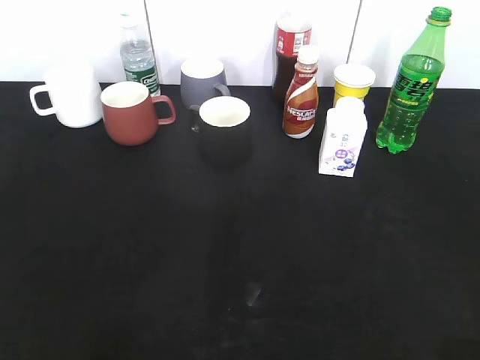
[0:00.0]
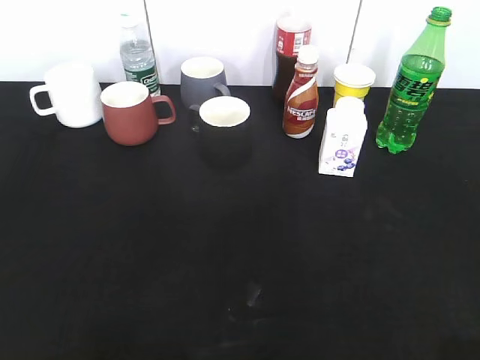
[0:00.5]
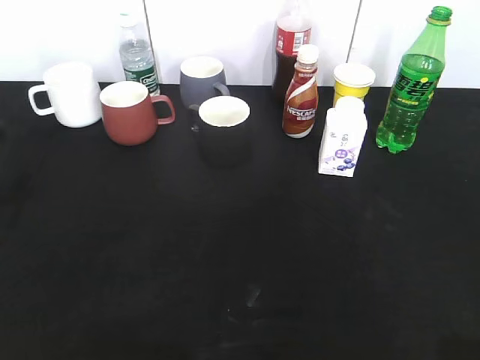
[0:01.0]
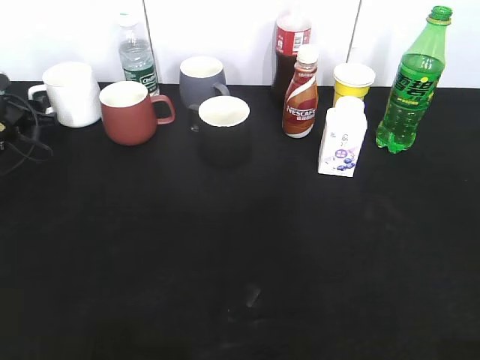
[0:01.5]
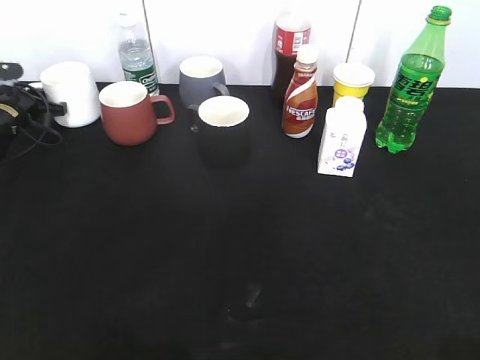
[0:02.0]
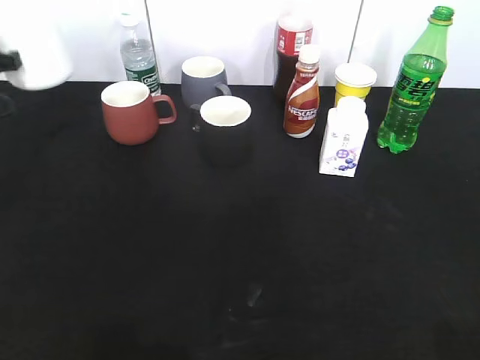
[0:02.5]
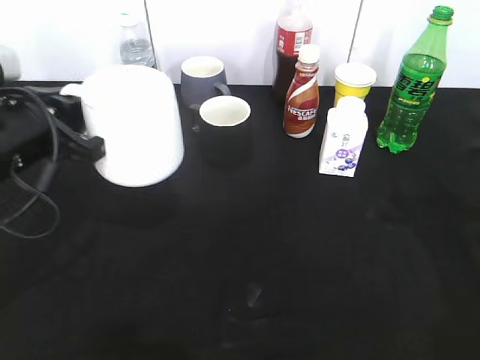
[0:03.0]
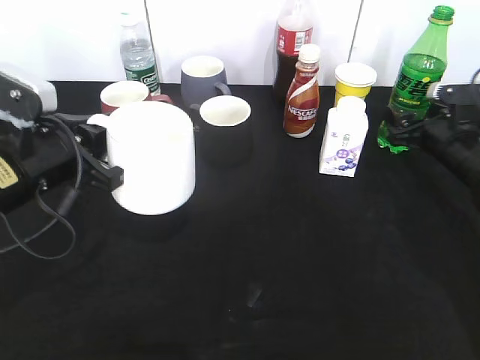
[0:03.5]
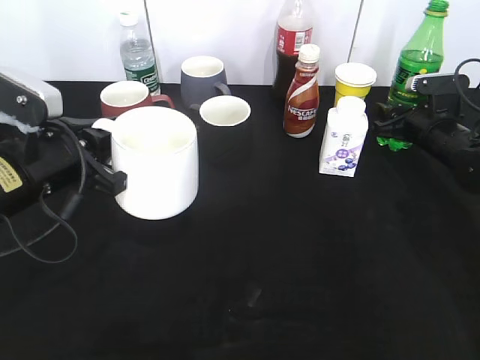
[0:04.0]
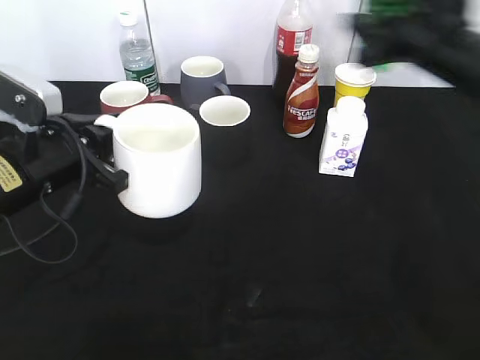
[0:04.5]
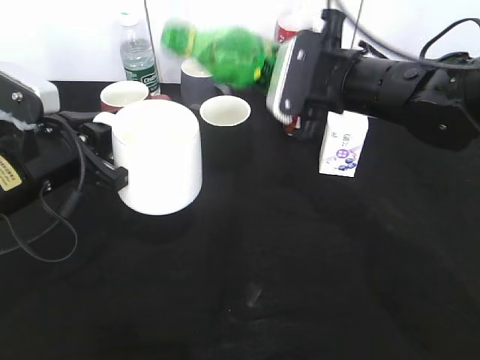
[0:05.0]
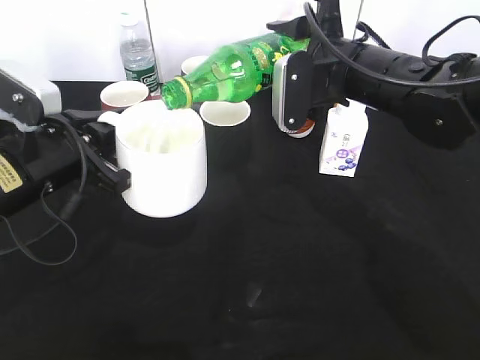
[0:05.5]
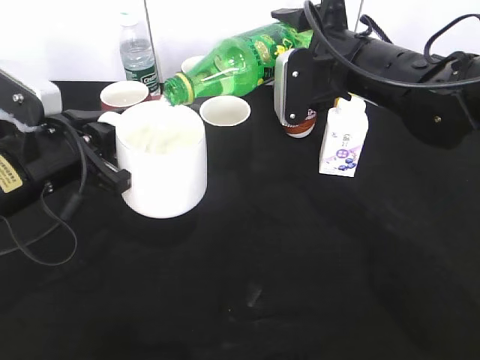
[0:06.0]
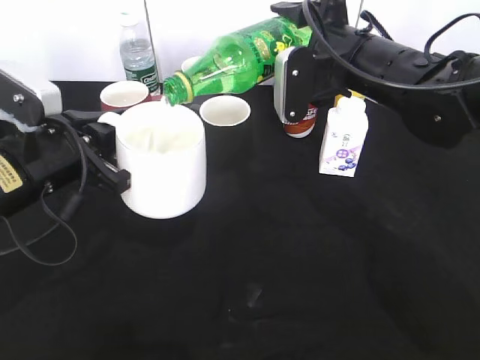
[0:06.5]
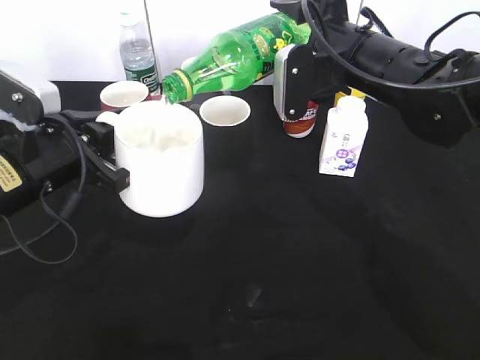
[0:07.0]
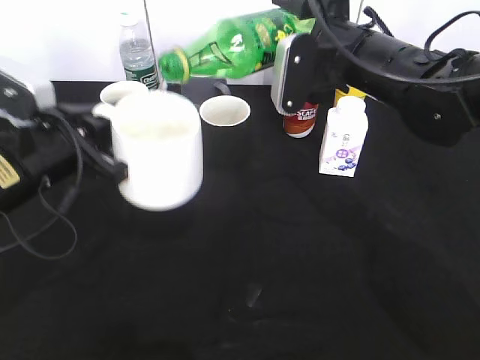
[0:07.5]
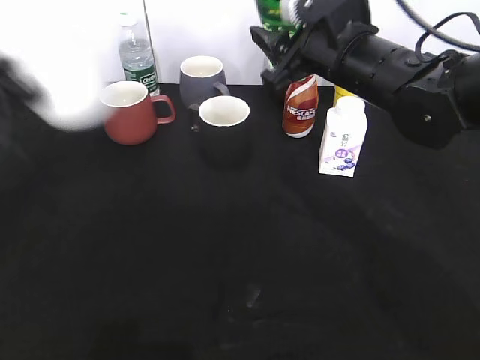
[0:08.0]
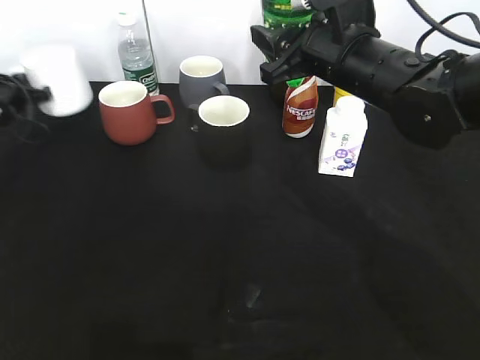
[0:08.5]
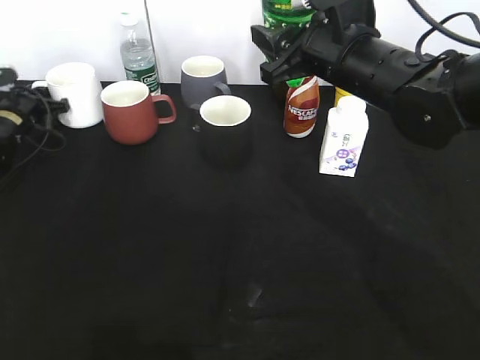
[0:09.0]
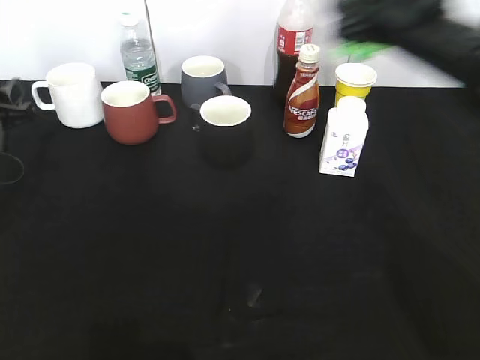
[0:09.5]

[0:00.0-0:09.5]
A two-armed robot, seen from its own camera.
Step, 0:02.0 to 0:03.5: Lift the white cup with left gripper.
Step, 0:04.5 to 0:07.5: Pour the sprite from bottle to cup with right gripper.
Step, 0:08.0 to 0:09.0: Place the white cup on the table with left gripper.
0:00.0 to 0:02.0: The left gripper heads forward and downward, covering about 60 cm, and closes its fingers.
0:02.0 to 0:04.0: The left gripper moves backward, to the right and upward, roughly 30 cm. The right gripper travels forward and downward by approximately 50 cm, and closes.
0:04.0 to 0:05.5: The right gripper goes roughly 25 cm to the left, upward and backward.
0:05.5 to 0:07.5: The grippers stay close to where they were, moving slightly.
0:07.5 to 0:09.5: The right gripper is displaced to the right by about 5 cm. The left gripper travels to the left and forward by roughly 15 cm, and opens.

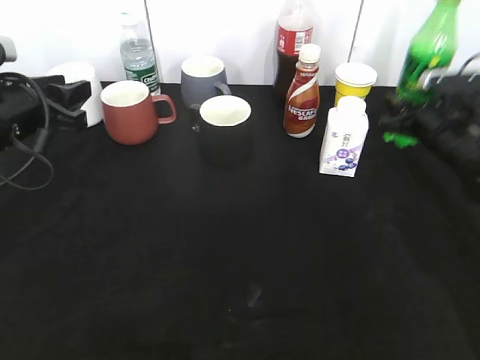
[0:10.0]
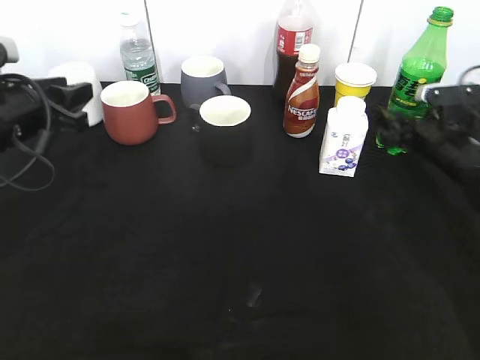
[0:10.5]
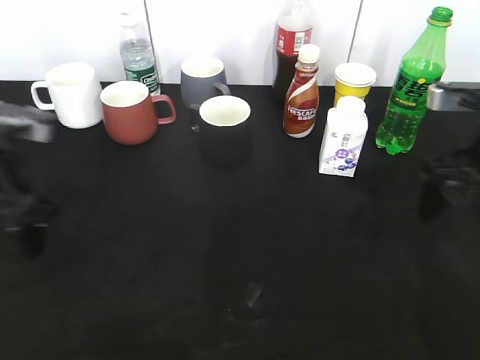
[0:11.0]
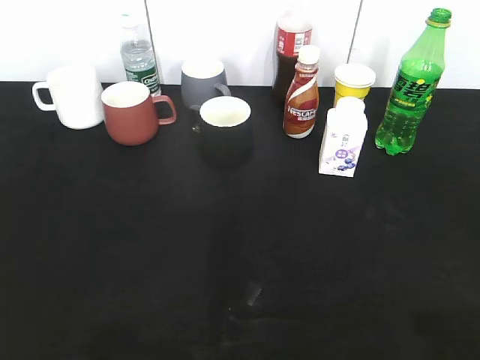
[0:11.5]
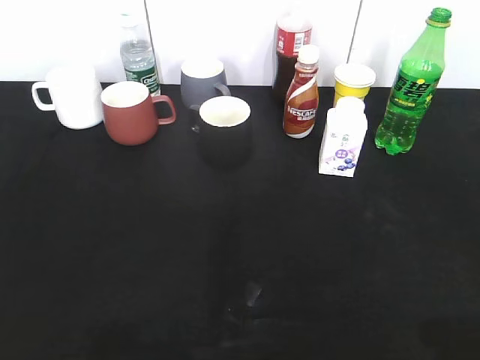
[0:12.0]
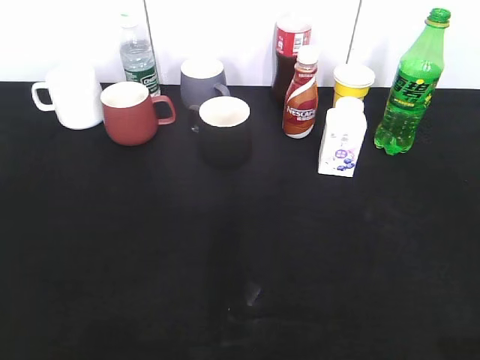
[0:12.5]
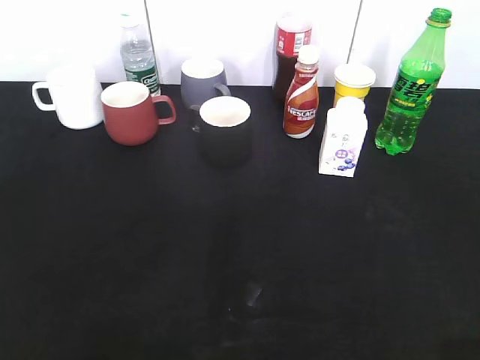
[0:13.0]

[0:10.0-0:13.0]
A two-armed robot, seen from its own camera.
0:10.0 to 0:11.5: Both grippers move backward and upward, roughly 40 cm. The right gripper opens up.

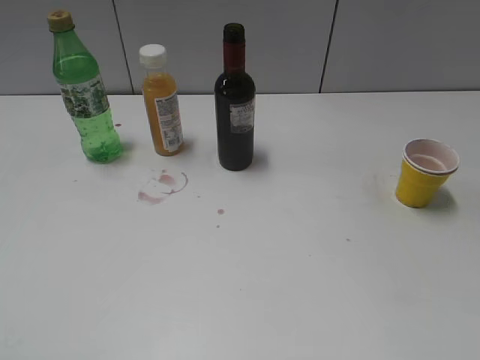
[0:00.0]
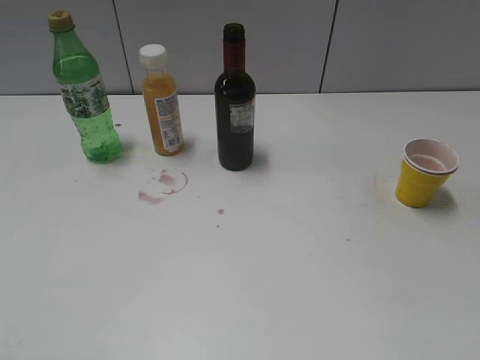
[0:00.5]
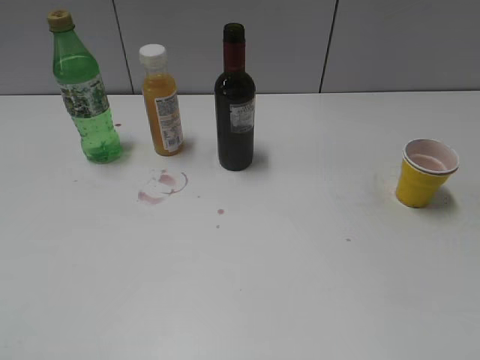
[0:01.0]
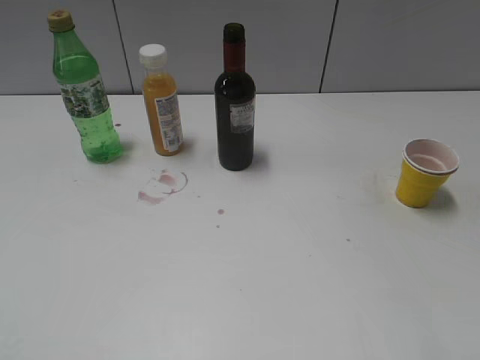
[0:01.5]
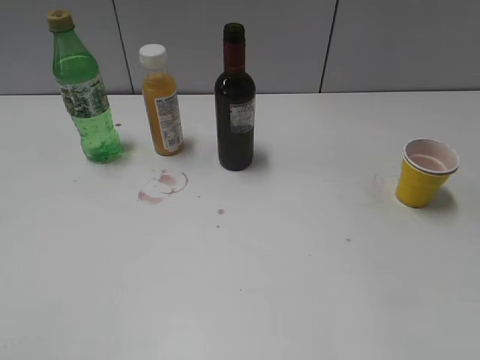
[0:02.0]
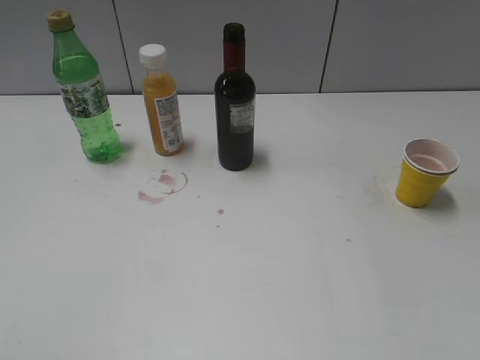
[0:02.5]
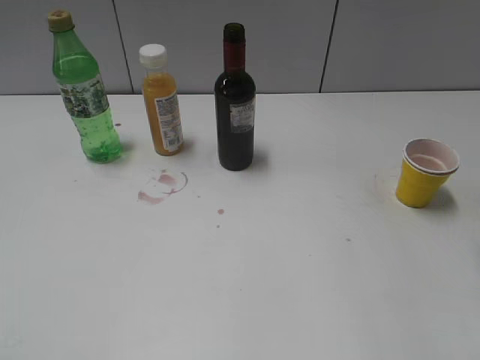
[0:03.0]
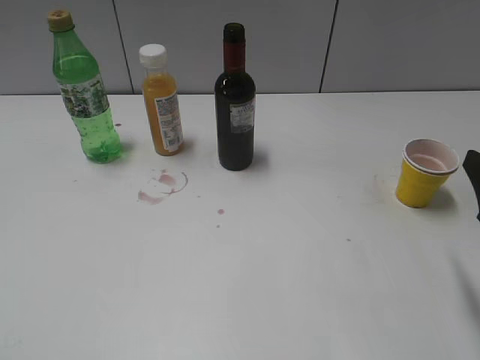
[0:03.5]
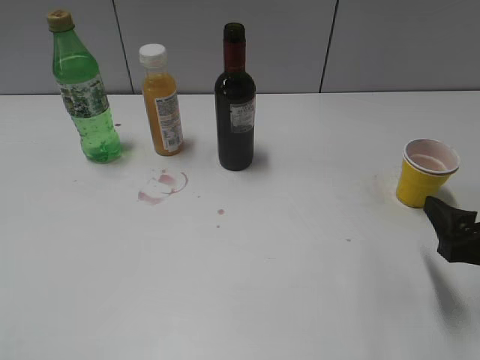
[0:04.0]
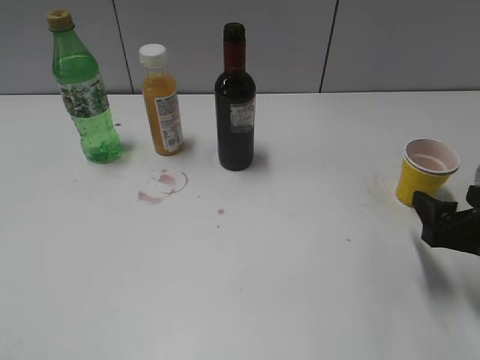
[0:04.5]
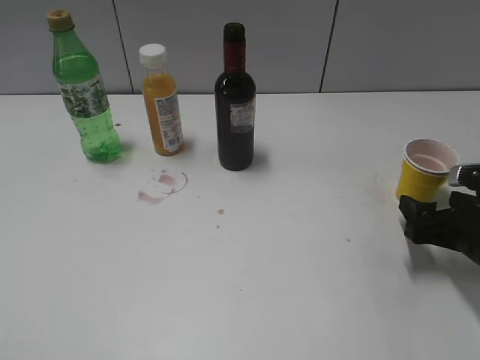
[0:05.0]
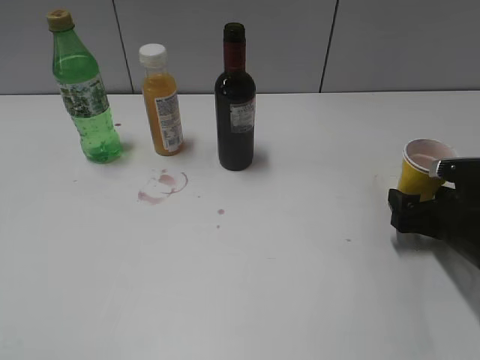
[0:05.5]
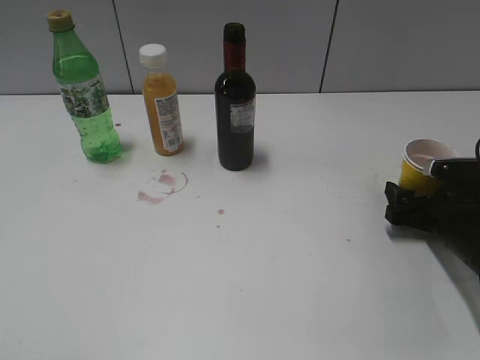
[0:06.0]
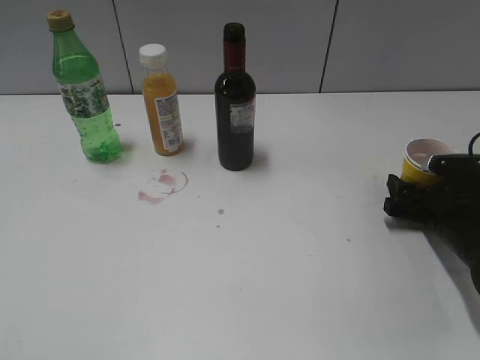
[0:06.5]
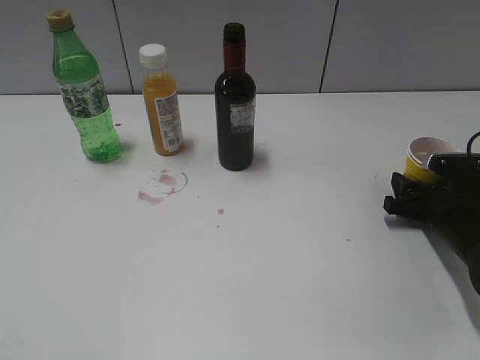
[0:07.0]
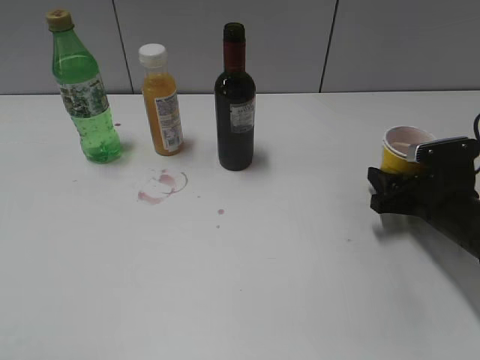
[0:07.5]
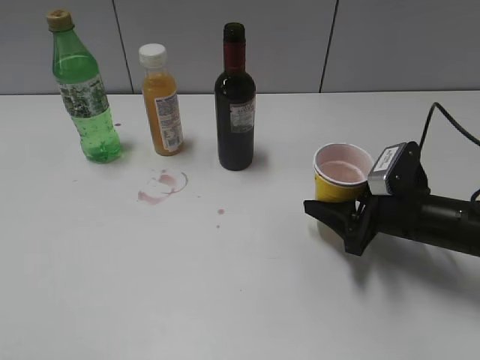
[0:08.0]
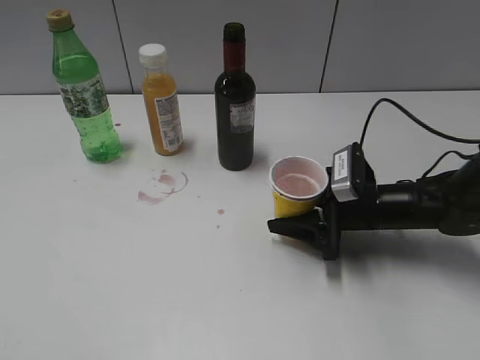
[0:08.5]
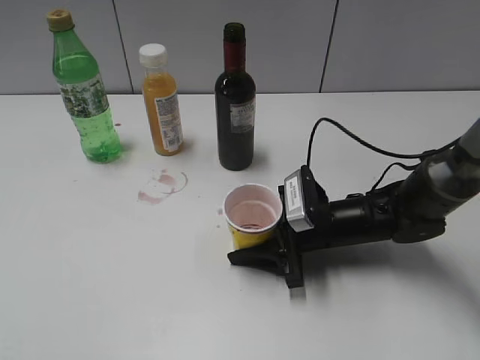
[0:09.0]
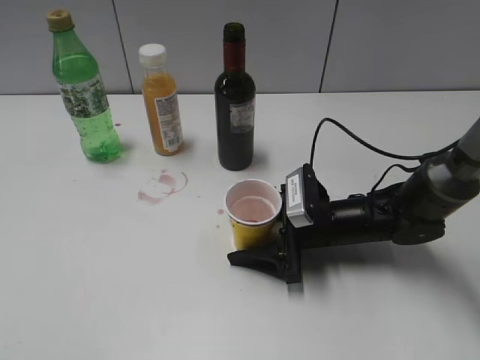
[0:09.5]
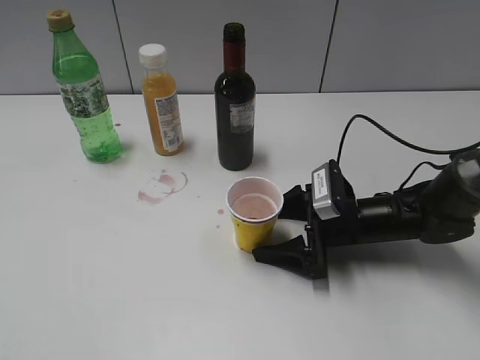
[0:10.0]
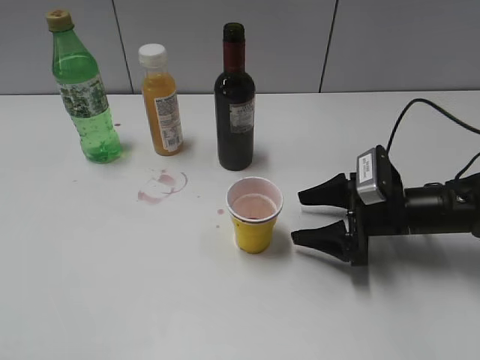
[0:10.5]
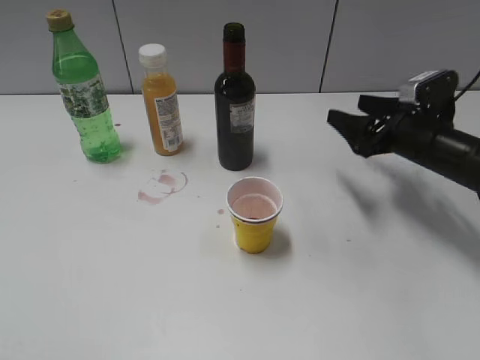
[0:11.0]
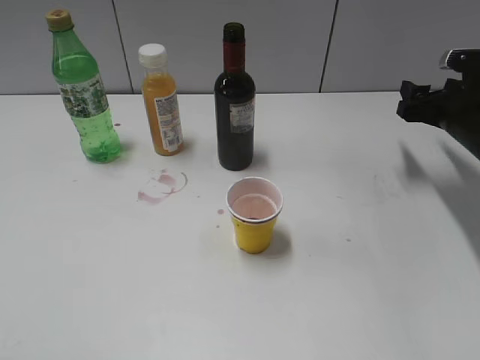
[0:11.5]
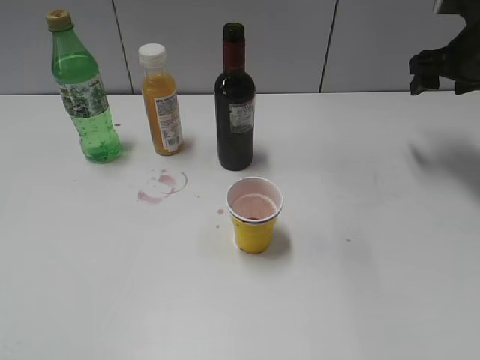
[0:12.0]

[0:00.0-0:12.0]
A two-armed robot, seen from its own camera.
Step, 0:01.0 to 0:07.0: Grasp the yellow paper cup with right gripper.
Step, 0:07.5 to 0:10.0: Place the yellow paper cup on the table with right gripper.
0:02.0 to 0:04.0: The right gripper shifts roughly 20 cm downward.
0:04.0 to 0:06.0: The right gripper moves forward and downward, about 15 cm.
0:06.0 to 0:08.0: The right gripper shifts some 5 cm to the left, and closes.
0:08.0 to 0:10.0: The right gripper goes approximately 5 cm to the left, and opens up.
0:10.0 to 0:12.0: The right gripper moves upward, to the right and forward, roughly 25 cm.

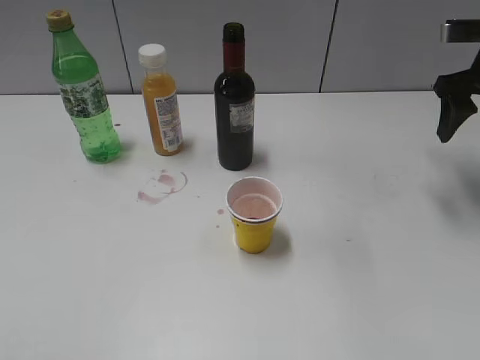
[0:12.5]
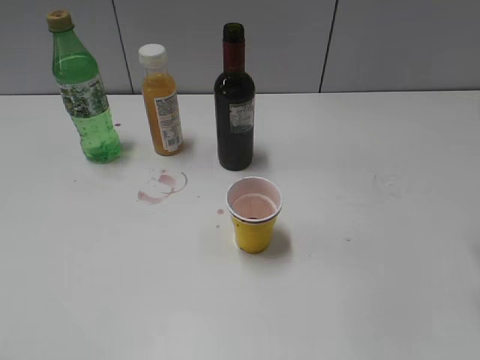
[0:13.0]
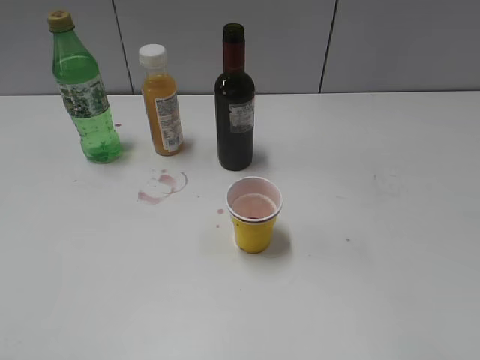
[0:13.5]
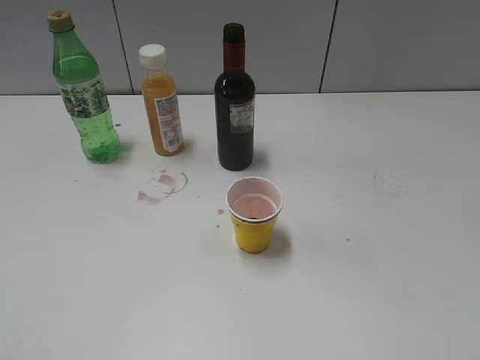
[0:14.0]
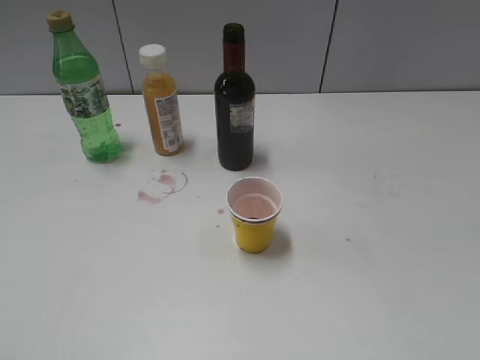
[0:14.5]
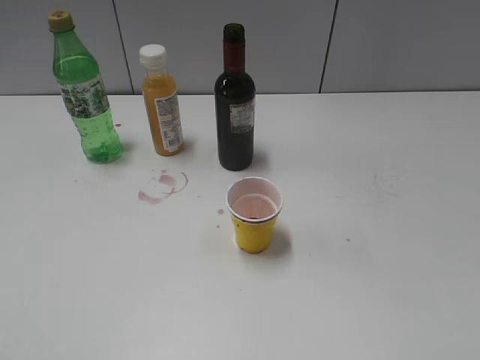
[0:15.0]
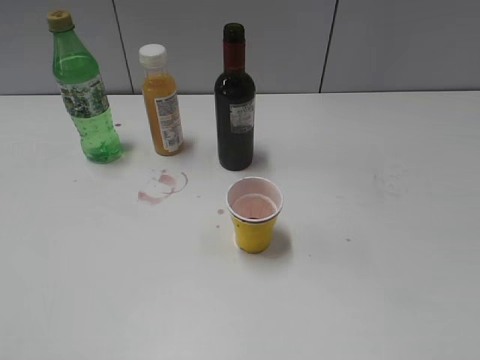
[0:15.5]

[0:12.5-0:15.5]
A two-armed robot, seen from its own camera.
0:12.5 to 0:14.0: The right gripper goes roughly 35 cm backward.
